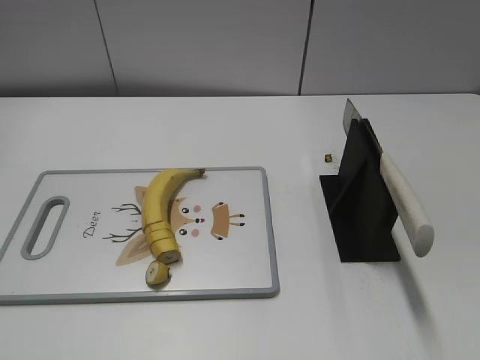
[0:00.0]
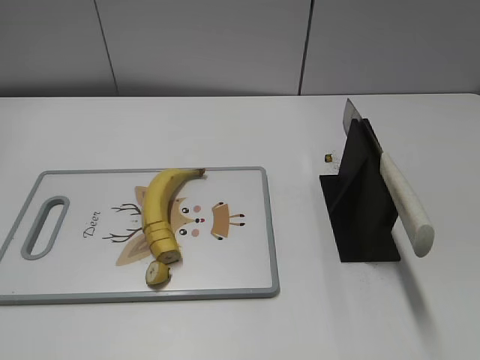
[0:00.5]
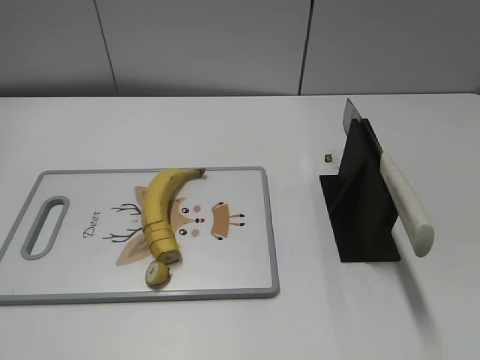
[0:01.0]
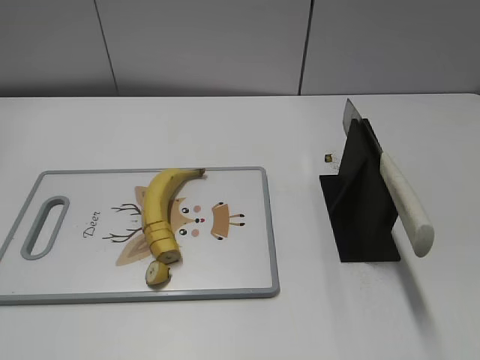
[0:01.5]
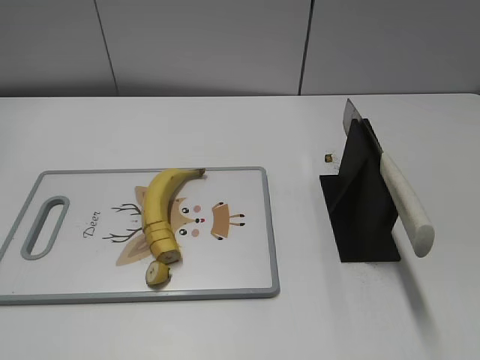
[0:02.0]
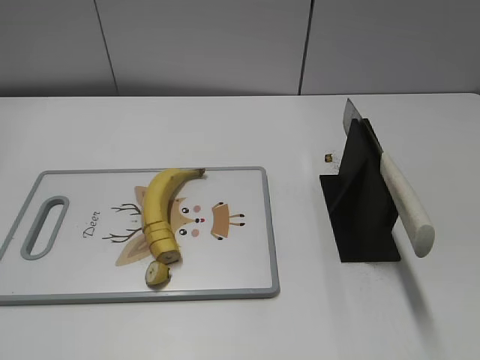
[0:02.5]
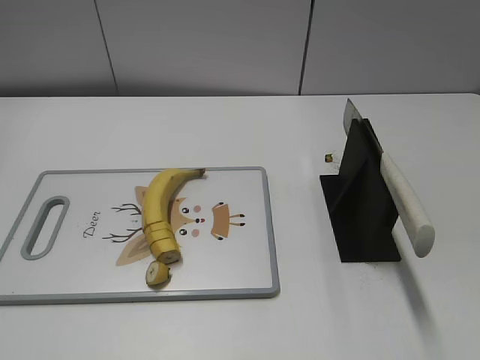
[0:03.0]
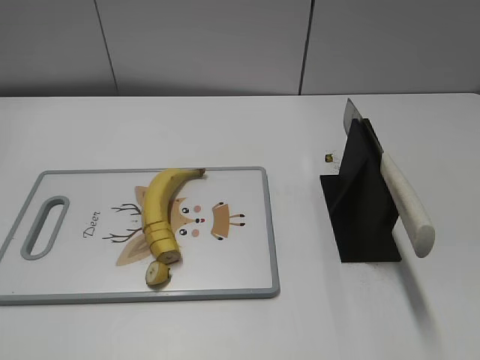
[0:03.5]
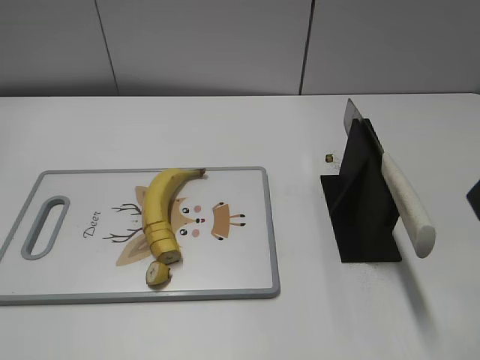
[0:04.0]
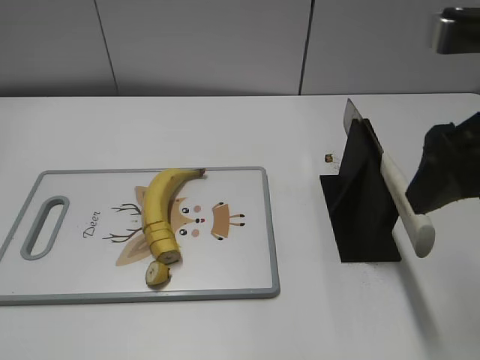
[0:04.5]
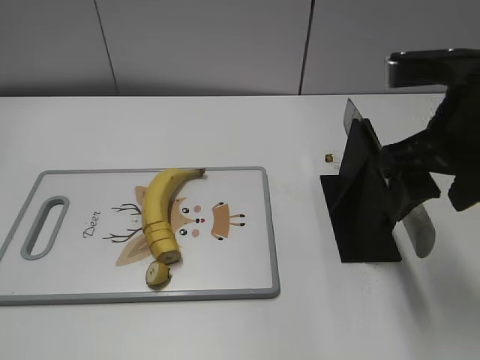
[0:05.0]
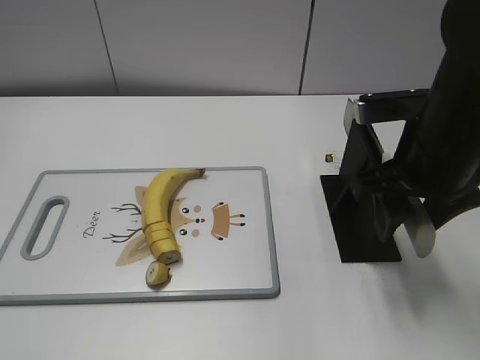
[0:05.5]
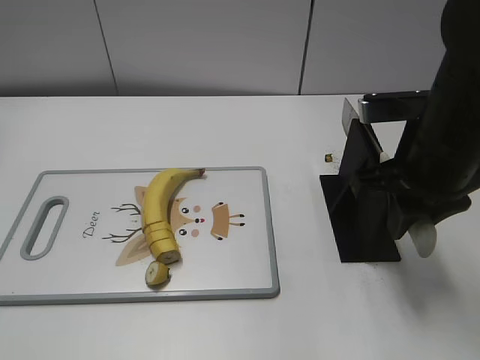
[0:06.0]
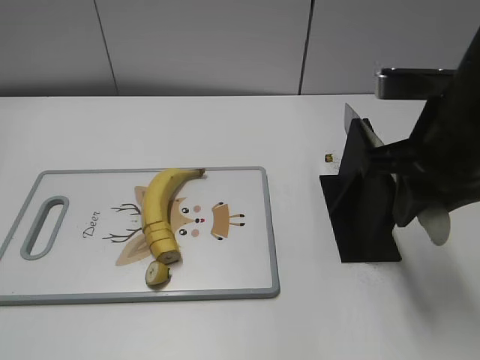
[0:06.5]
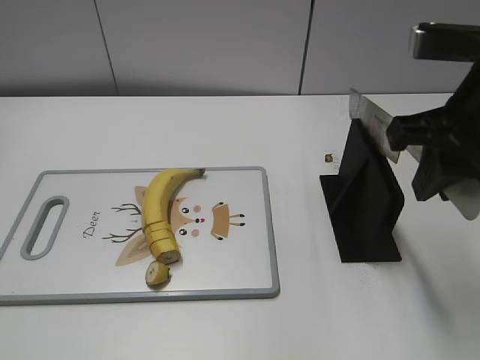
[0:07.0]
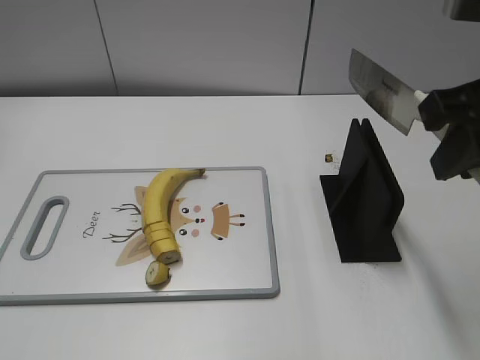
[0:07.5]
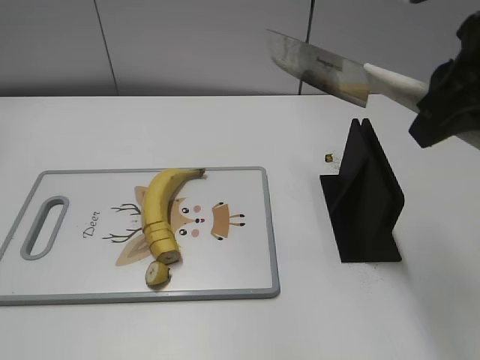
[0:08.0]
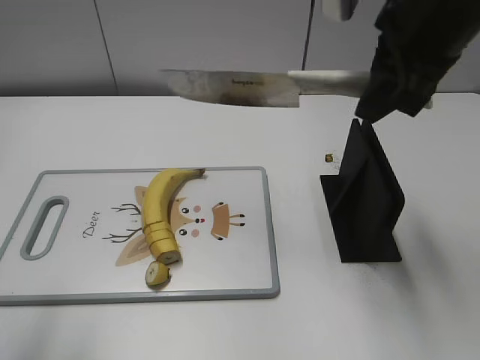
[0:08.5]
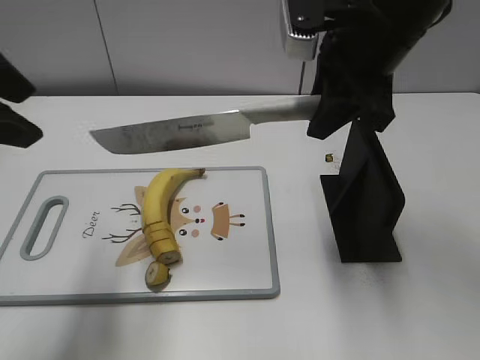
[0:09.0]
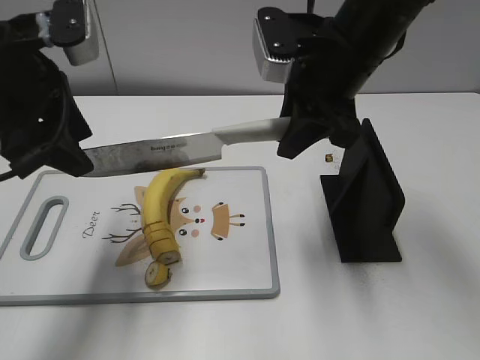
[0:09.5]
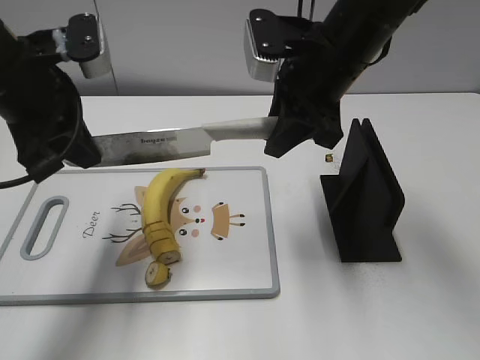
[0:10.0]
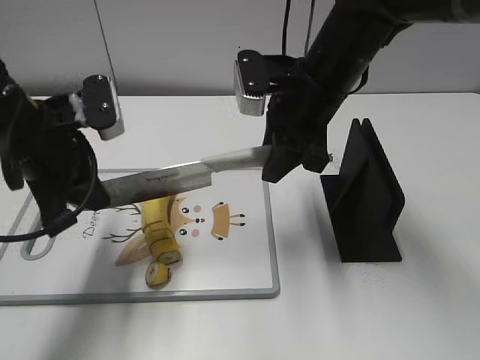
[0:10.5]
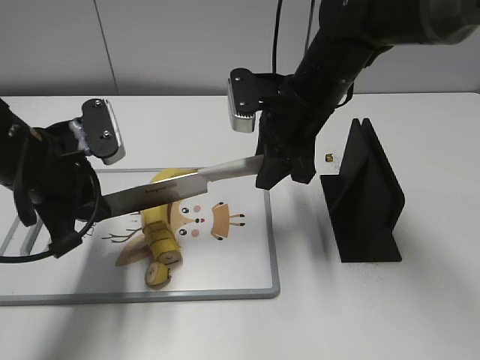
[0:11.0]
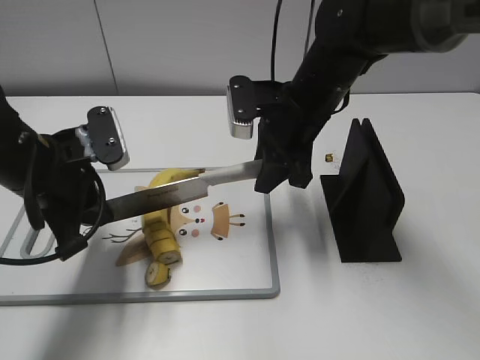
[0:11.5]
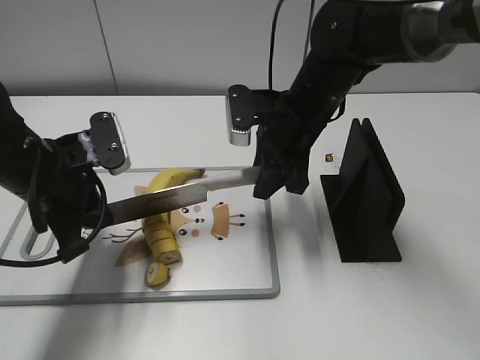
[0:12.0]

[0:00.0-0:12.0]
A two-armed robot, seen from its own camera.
Task of the whole recording: cut banana.
Step, 0:00.0 to 0:07.5: Grab the knife handle with your right hand.
0:04.0 to 0:06.0: The right gripper goes about 15 cm downward, forward and to the left, and closes.
0:06.0 to 0:08.0: The right gripper shifts roughly 10 cm upward.
0:08.0 to 0:10.0: The right gripper shifts approximately 15 cm forward, to the left and downward; the left gripper travels forward by roughly 30 cm, and closes its fingers.
0:10.0 to 0:12.0: Both grippers travel together downward, some 10 cm.

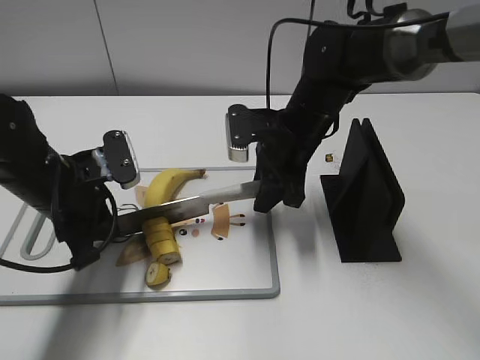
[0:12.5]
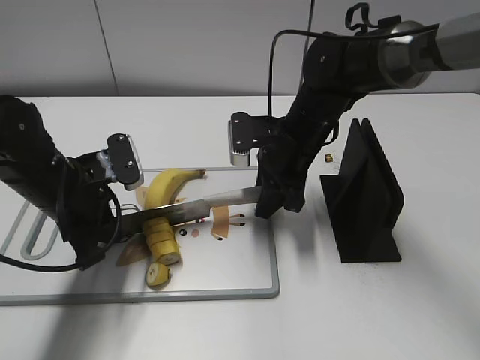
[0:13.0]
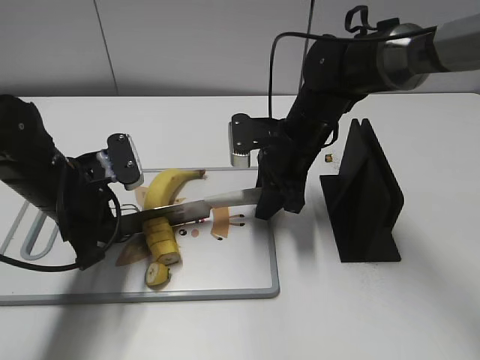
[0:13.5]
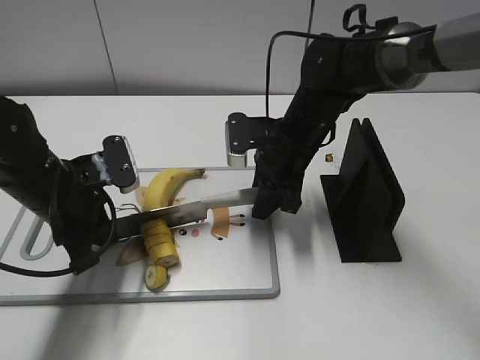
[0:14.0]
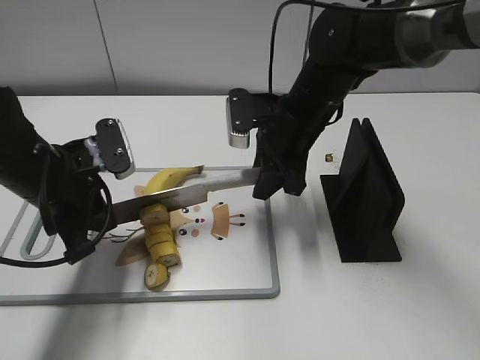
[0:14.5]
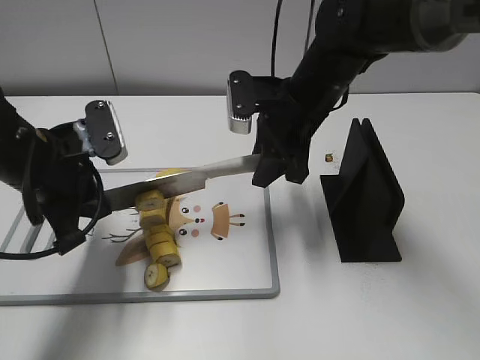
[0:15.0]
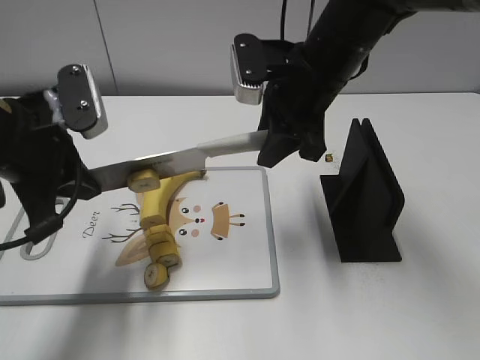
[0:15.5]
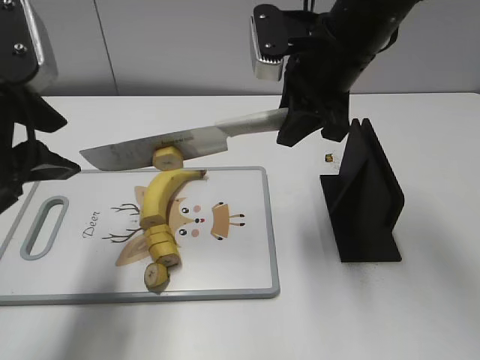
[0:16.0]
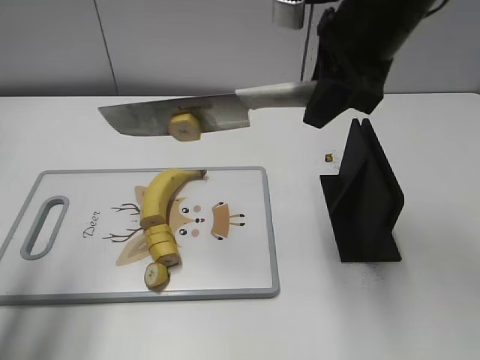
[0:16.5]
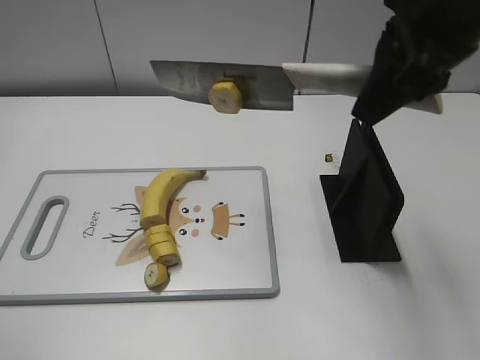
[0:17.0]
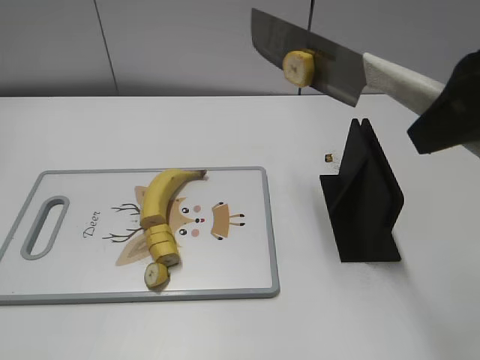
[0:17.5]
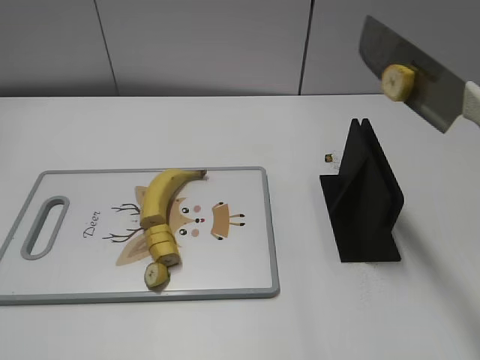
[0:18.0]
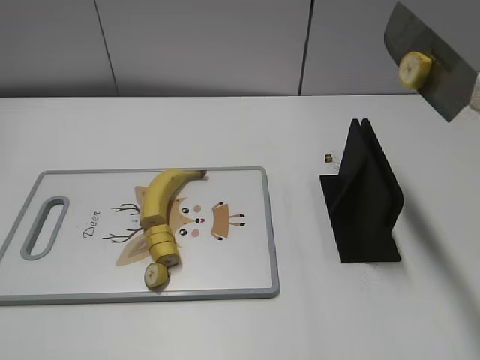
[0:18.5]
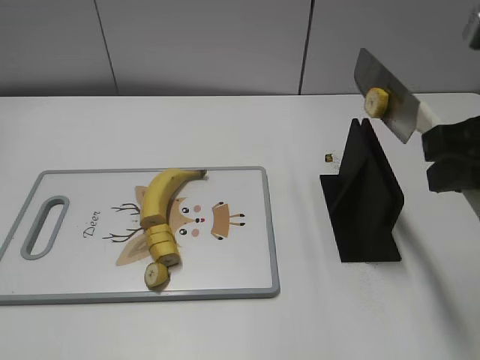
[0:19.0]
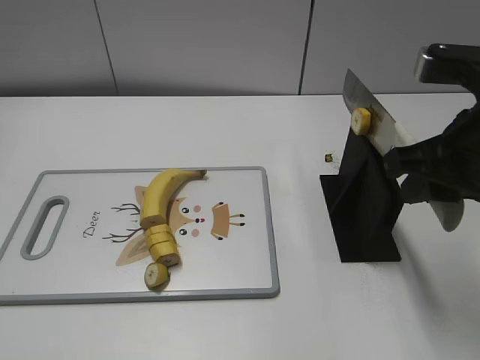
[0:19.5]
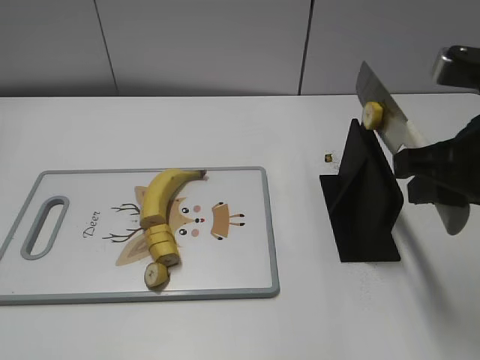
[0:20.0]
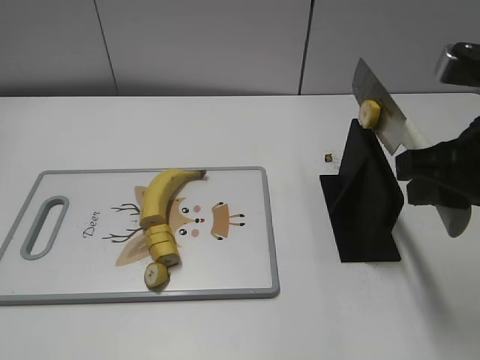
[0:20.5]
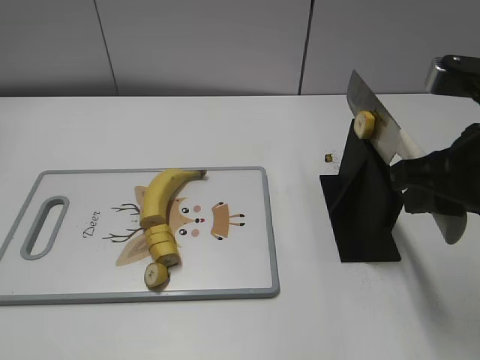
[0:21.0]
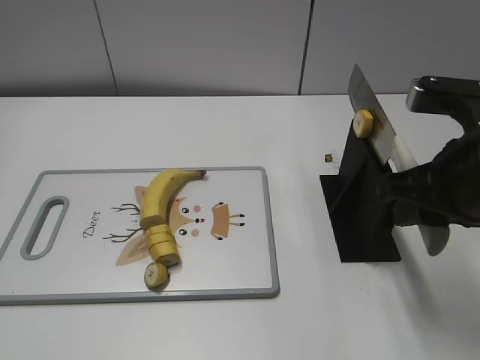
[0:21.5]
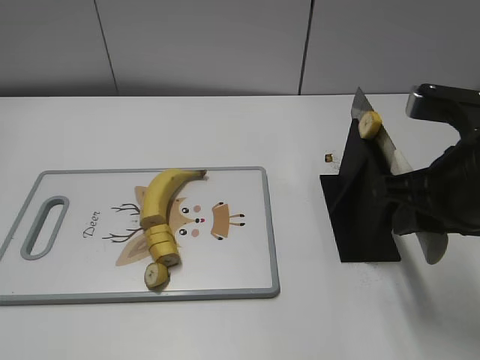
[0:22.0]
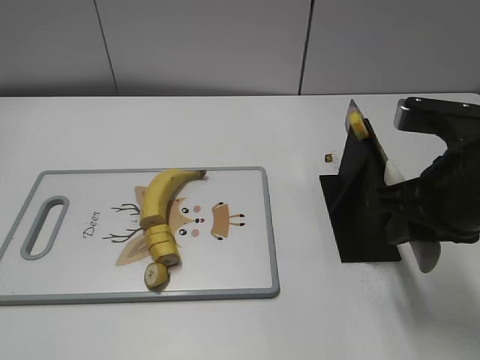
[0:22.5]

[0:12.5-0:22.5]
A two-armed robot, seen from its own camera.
Task of the whole recording: cut banana.
Step, 0:13.0 to 0:15.5: Cut the banana with your right hand.
Step, 0:16.0 to 0:19.5: Lift the knife with your right hand.
0:12.5 to 0:14.5: The grippers stay close to where they were, moving slightly.
0:14.5 to 0:16.5: The left gripper travels upward, to the left and backward by roughly 20 cm, and opens, while the right gripper shifts about 15 cm upward.
0:16.5 to 0:18.5: The left gripper moves backward, approximately 20 cm, while the right gripper moves backward and to the right, roughly 20 cm.
0:18.5 to 0:20.5: The right gripper goes approximately 10 cm downward and forward.
0:20.5 to 0:22.5: The grippers make only small movements.

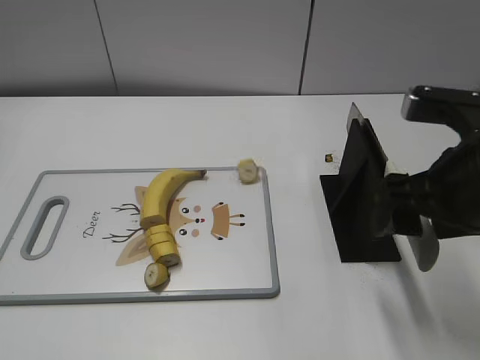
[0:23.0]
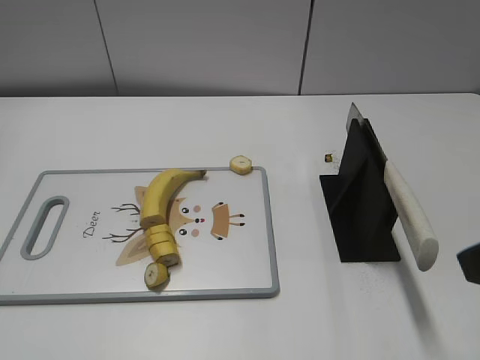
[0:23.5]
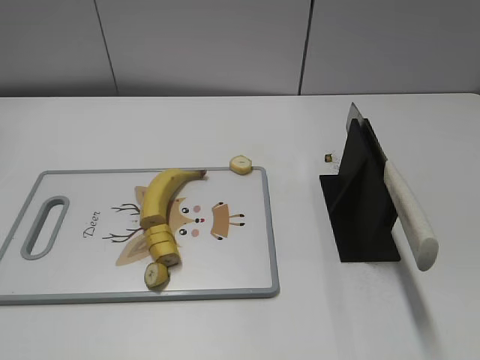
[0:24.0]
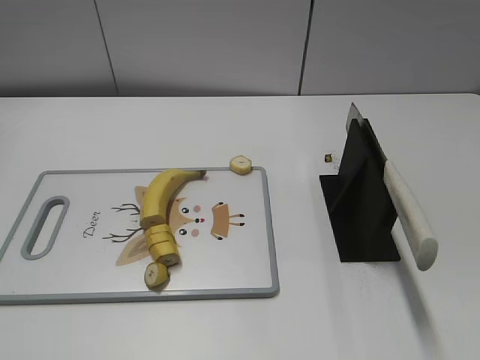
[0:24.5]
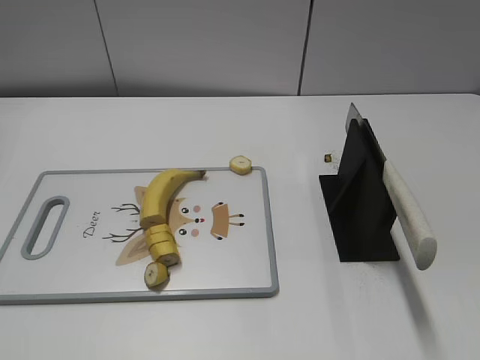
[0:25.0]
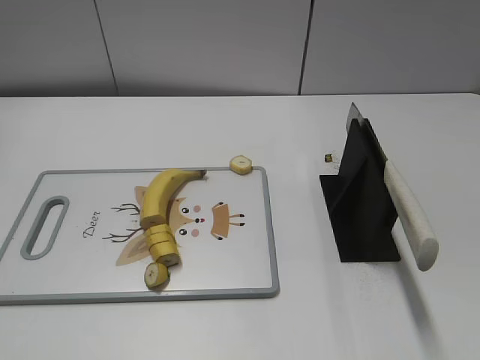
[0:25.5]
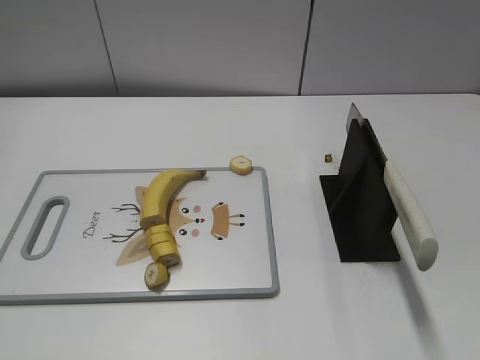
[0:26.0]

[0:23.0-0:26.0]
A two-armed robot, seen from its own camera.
Task of the whole recording: cut banana.
Step, 0:23.0 to 0:26.0: Place the knife on the storage rack with your right hand.
0:23.0 to 0:24.5: The right gripper shifts about 25 cm backward and to the right.
